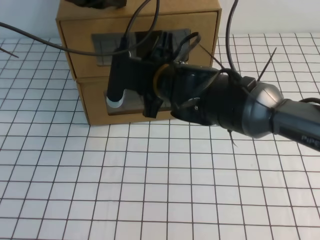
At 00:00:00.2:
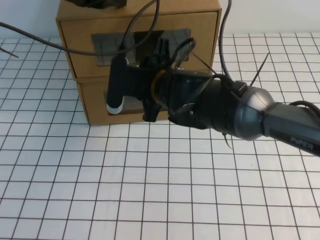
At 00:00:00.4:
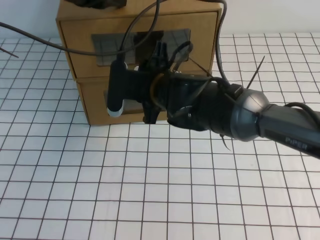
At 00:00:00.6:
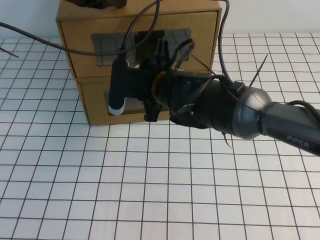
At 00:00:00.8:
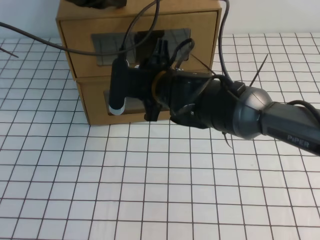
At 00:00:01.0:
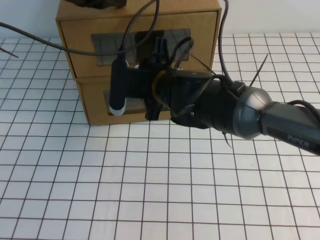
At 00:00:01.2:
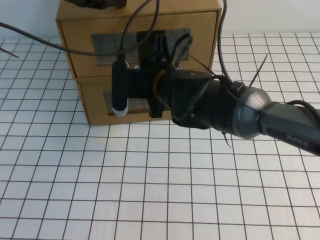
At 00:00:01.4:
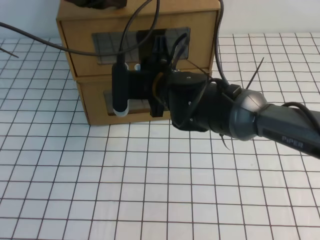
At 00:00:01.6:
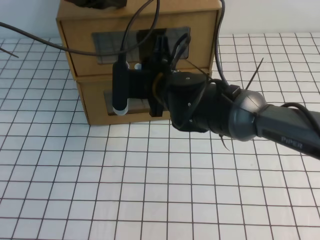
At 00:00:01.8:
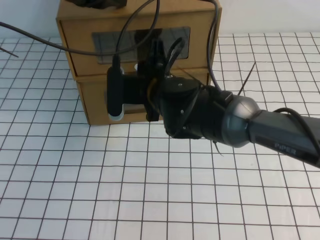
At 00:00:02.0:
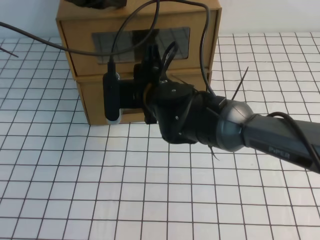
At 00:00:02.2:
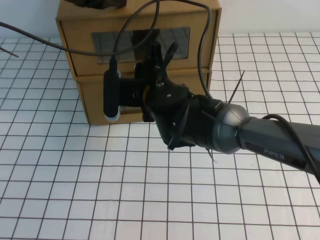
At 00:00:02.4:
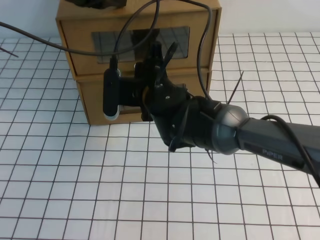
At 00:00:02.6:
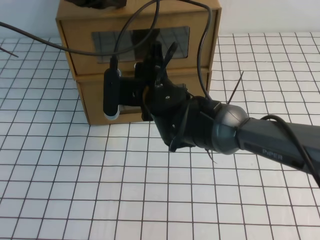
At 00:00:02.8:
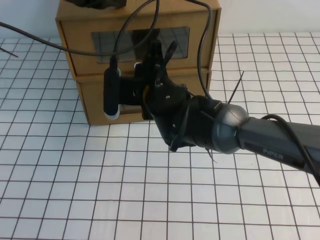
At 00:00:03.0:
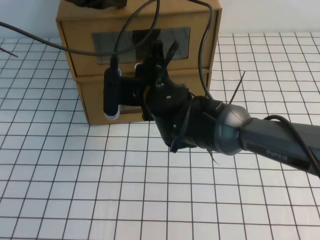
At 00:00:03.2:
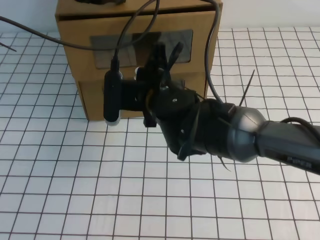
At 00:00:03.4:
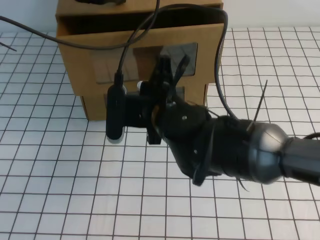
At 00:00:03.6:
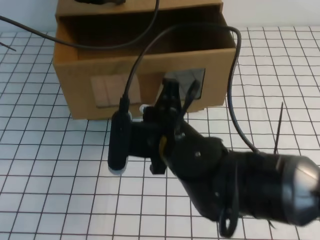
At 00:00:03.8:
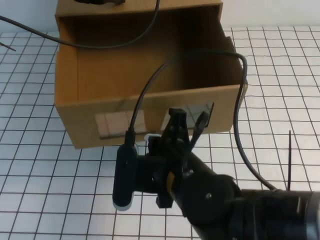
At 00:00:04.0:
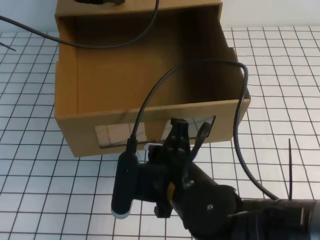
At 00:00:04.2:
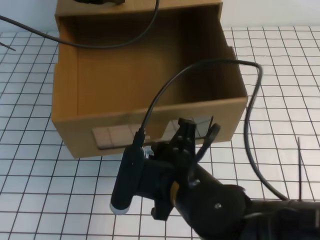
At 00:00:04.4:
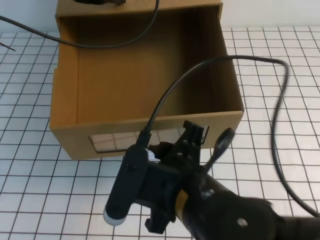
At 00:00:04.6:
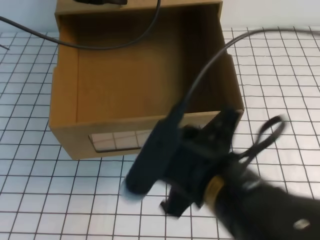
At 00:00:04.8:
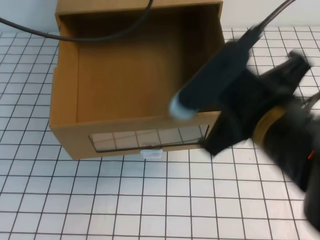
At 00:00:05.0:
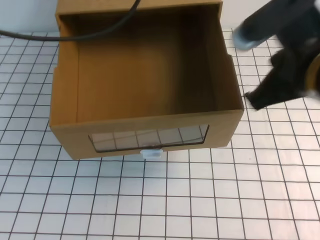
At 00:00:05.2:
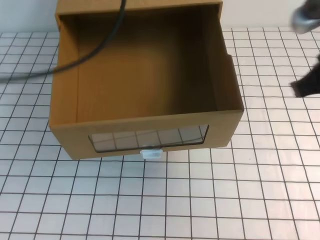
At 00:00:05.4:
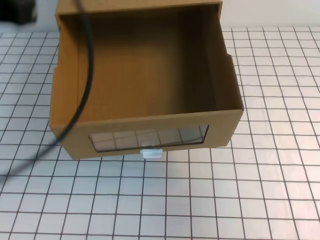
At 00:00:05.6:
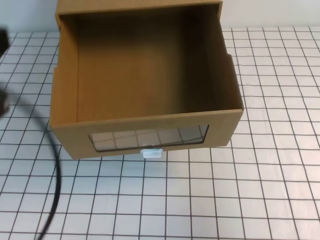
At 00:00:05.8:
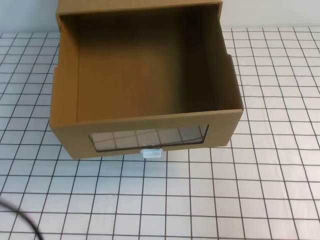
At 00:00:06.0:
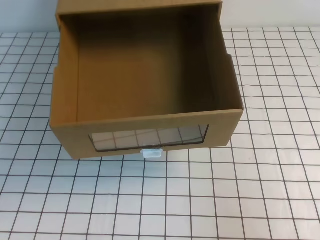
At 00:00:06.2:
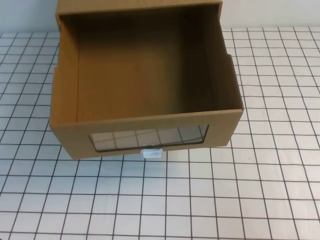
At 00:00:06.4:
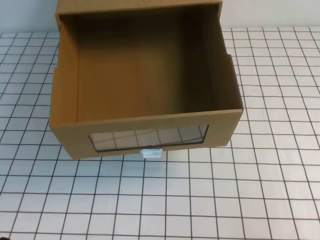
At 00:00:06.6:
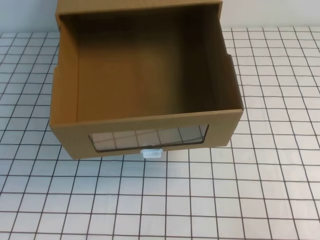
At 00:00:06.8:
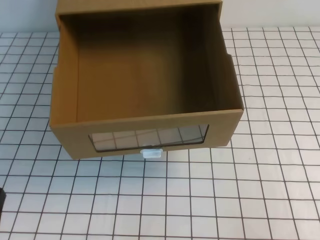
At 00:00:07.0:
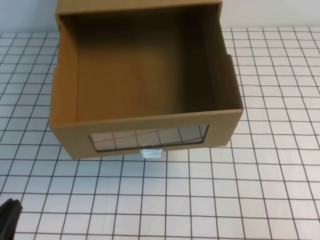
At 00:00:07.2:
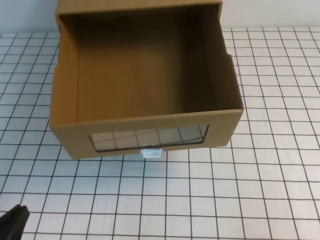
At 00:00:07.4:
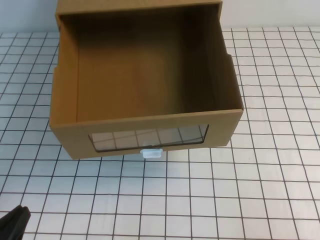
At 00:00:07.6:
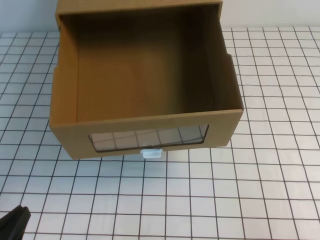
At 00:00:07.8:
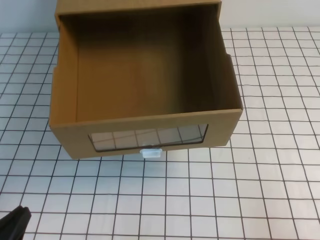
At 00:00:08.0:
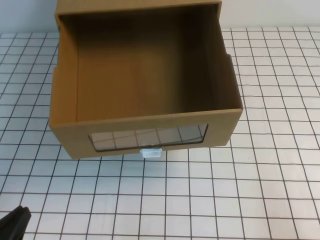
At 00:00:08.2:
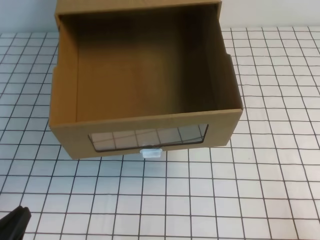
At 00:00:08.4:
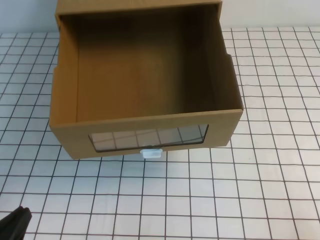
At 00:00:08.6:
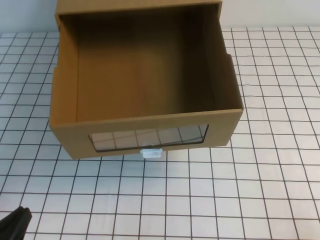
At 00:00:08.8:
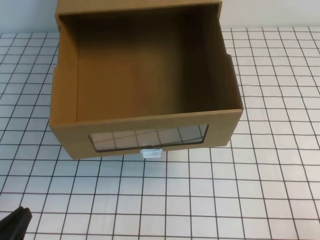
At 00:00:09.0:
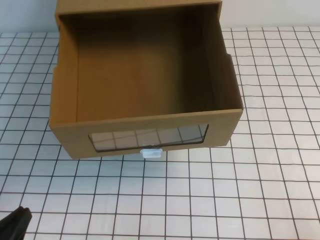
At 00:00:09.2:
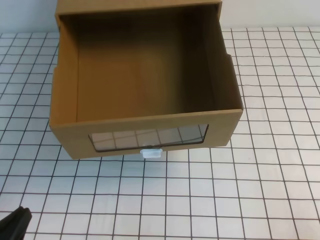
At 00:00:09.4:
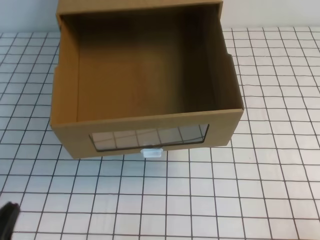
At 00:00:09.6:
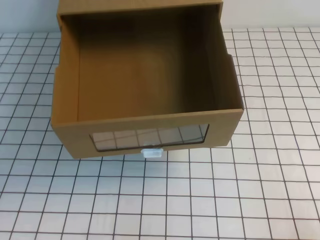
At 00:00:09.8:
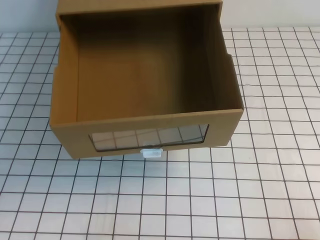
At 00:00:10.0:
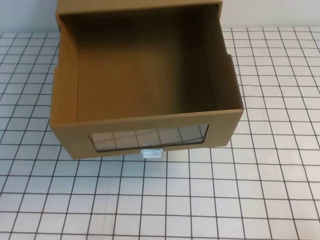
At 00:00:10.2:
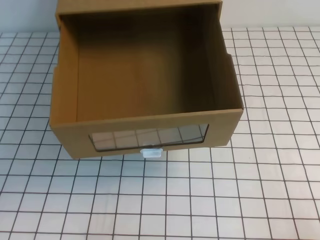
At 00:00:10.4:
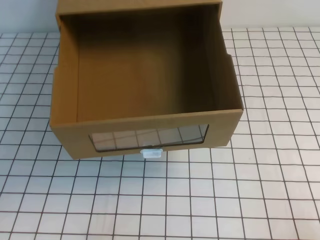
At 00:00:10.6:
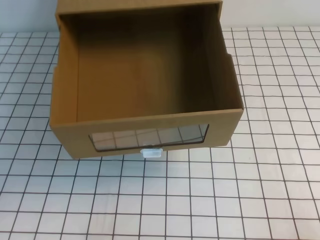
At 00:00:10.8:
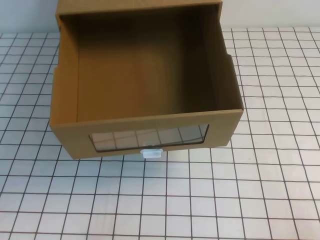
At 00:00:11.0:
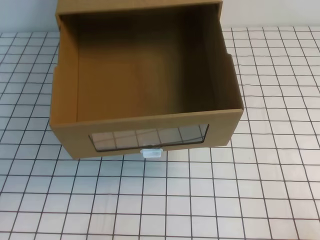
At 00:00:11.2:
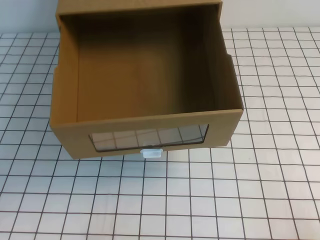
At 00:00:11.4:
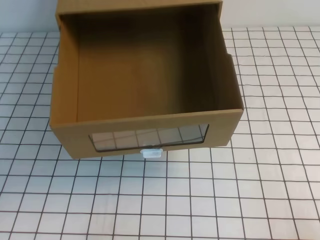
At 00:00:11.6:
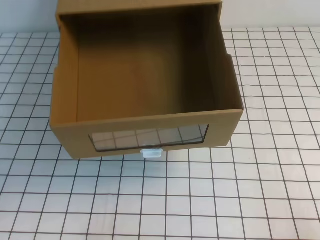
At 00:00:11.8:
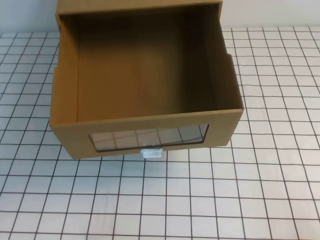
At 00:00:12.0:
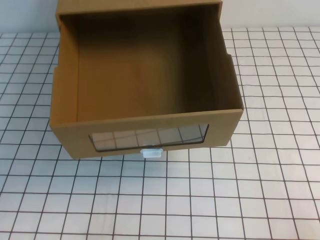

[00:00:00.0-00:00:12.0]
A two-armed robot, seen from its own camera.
Task of the whole recording: open the shoebox on the white tablecloth.
Step, 00:00:00.0 to 00:00:12.0: Open the shoe box.
00:00:00.0 to 00:00:01.6: The grippers move only a little.
00:00:01.6 to 00:00:03.0: The right gripper closes.
00:00:03.0 to 00:00:04.4: The right gripper goes some 20 cm backward, and opens.
00:00:04.4 to 00:00:06.0: The left gripper goes roughly 35 cm backward. The right gripper shifts roughly 25 cm to the right, and closes up.
00:00:06.0 to 00:00:07.6: The left gripper heads downward, covering some 15 cm.
00:00:09.0 to 00:00:10.4: The grippers make only small movements.
00:00:10.4 to 00:00:12.0: Neither gripper changes place.
